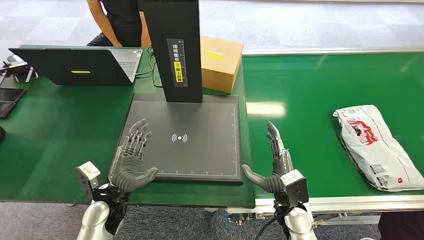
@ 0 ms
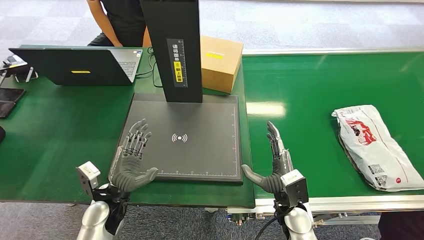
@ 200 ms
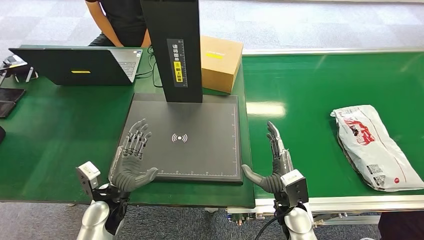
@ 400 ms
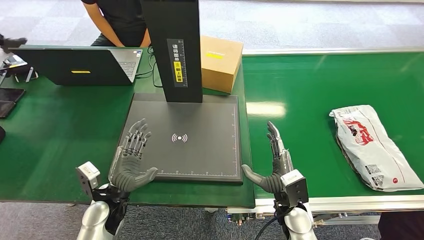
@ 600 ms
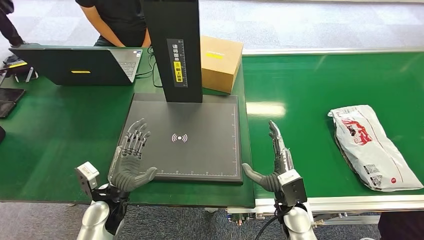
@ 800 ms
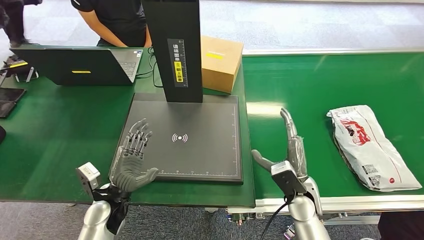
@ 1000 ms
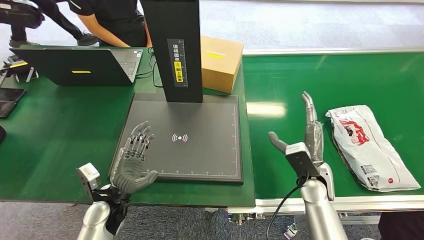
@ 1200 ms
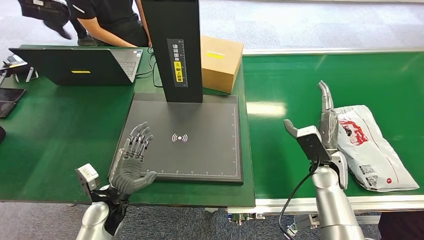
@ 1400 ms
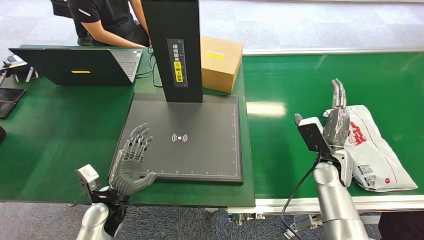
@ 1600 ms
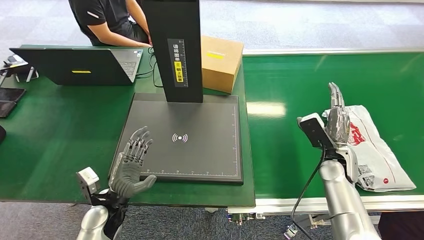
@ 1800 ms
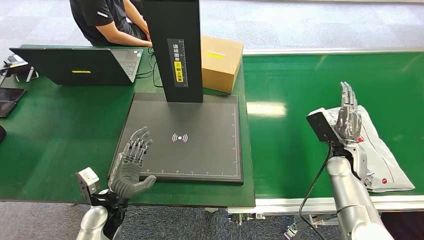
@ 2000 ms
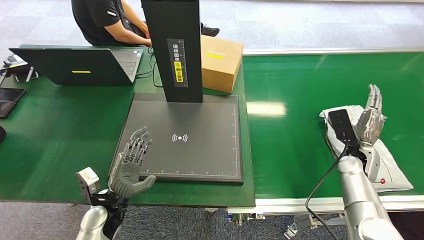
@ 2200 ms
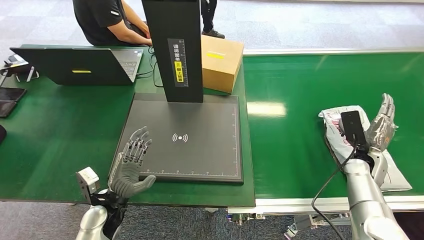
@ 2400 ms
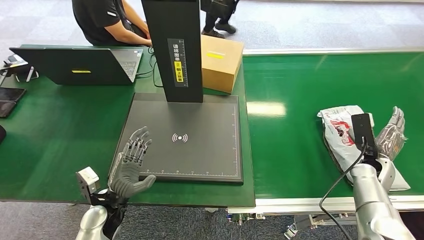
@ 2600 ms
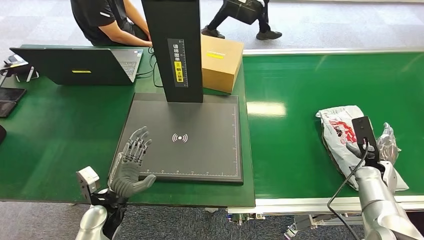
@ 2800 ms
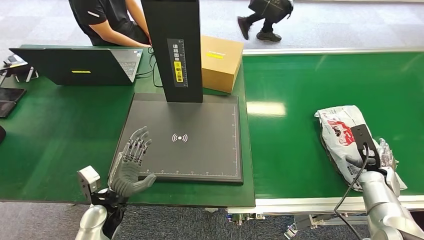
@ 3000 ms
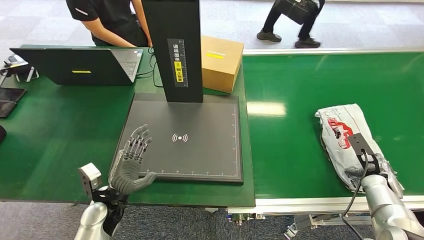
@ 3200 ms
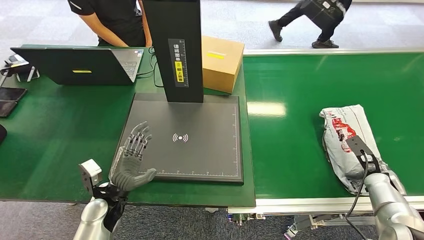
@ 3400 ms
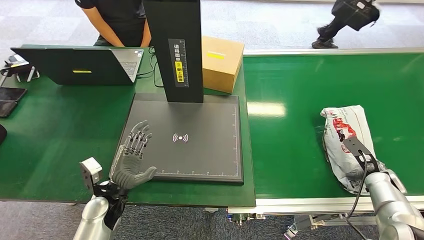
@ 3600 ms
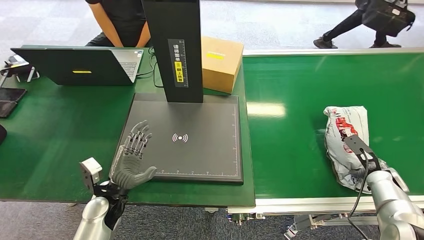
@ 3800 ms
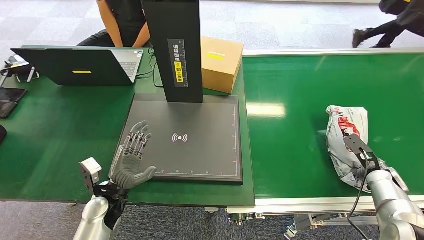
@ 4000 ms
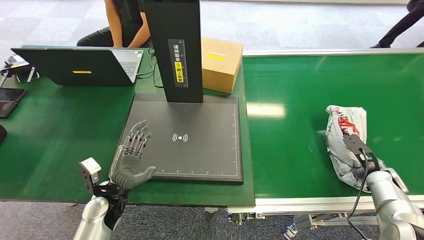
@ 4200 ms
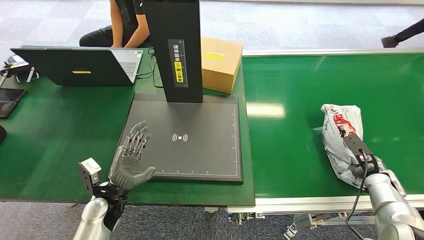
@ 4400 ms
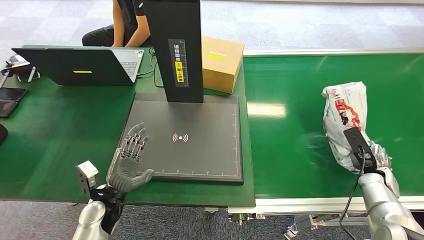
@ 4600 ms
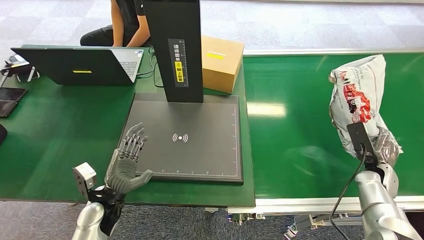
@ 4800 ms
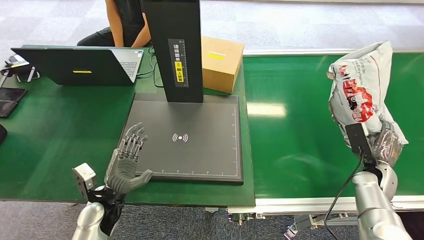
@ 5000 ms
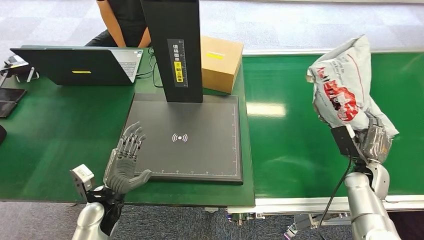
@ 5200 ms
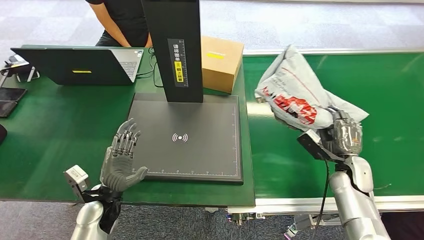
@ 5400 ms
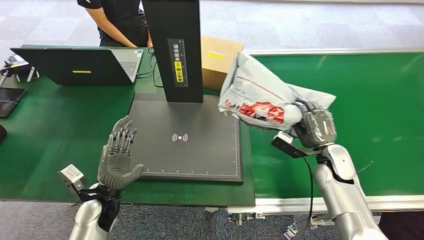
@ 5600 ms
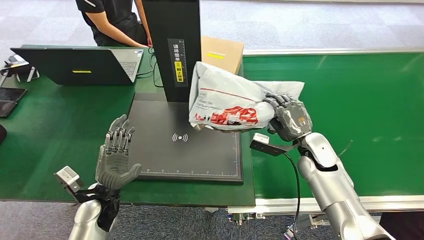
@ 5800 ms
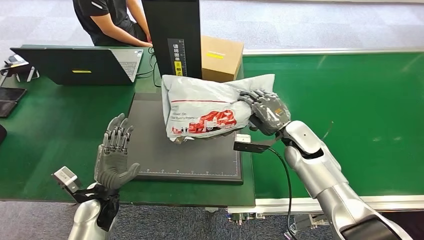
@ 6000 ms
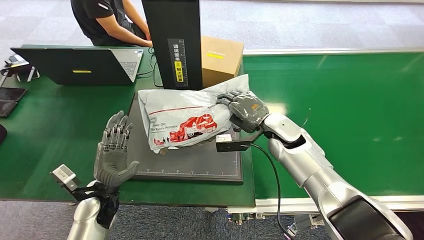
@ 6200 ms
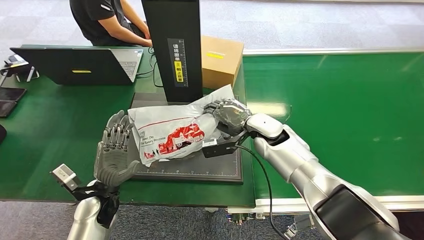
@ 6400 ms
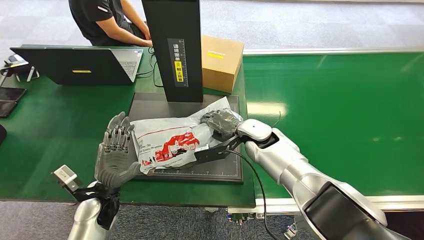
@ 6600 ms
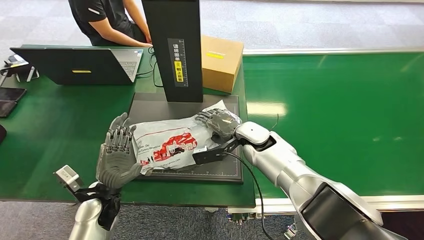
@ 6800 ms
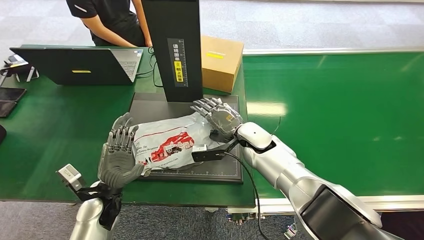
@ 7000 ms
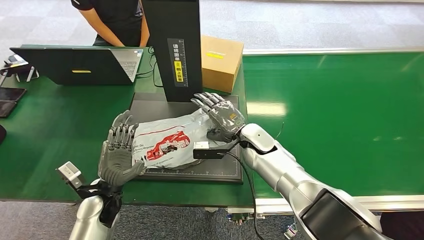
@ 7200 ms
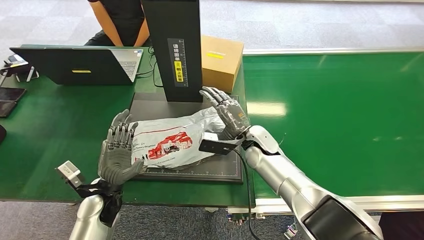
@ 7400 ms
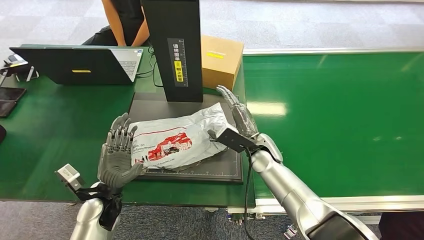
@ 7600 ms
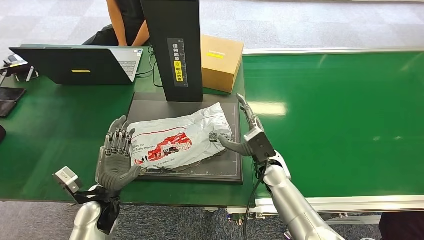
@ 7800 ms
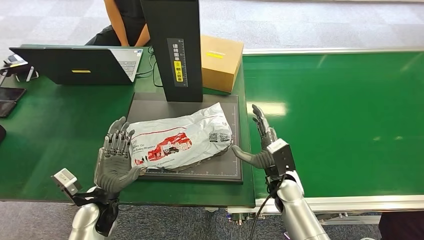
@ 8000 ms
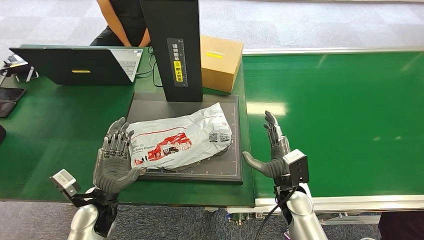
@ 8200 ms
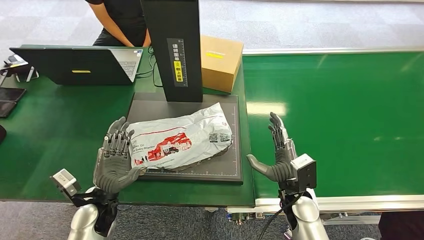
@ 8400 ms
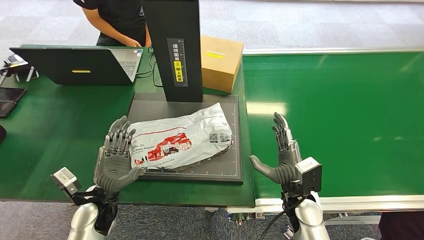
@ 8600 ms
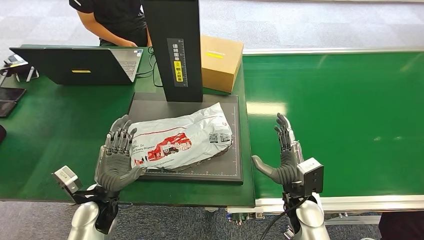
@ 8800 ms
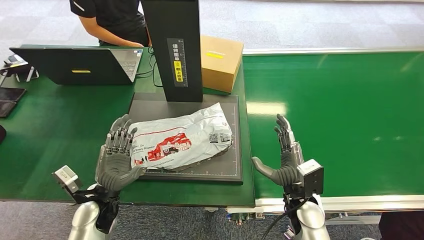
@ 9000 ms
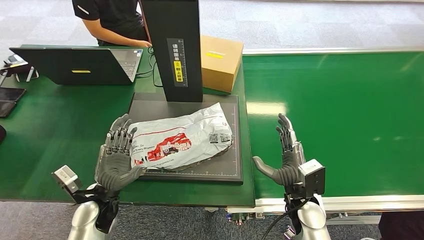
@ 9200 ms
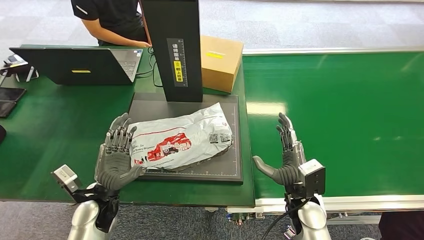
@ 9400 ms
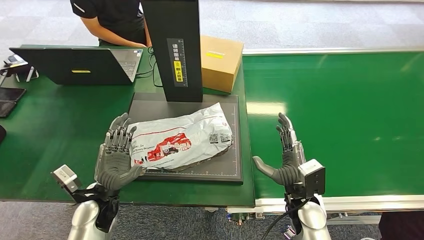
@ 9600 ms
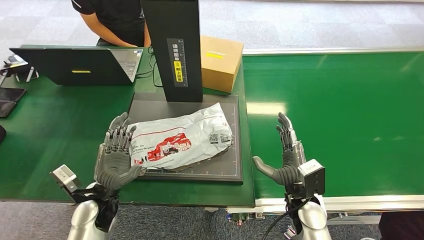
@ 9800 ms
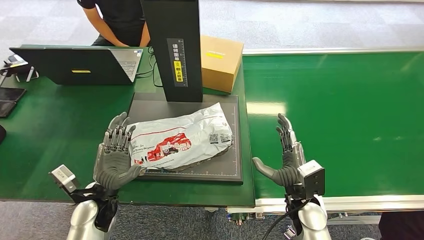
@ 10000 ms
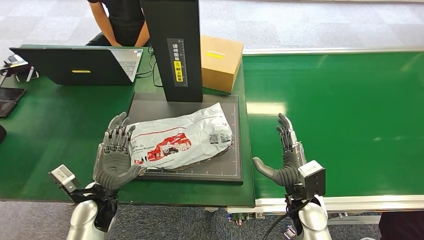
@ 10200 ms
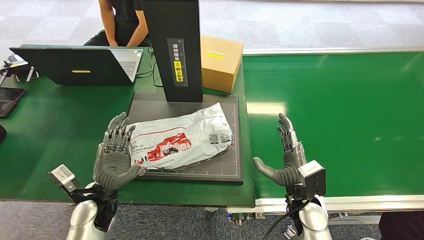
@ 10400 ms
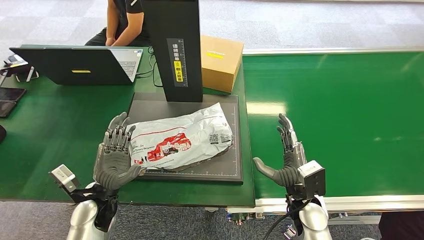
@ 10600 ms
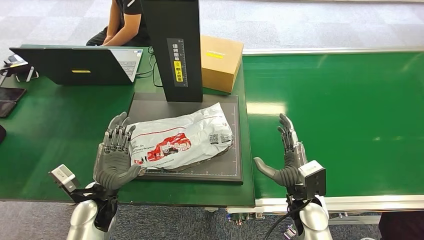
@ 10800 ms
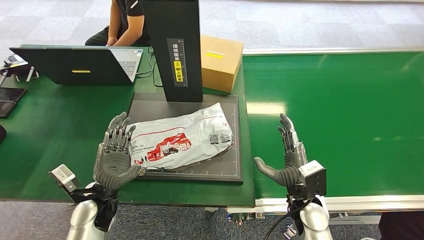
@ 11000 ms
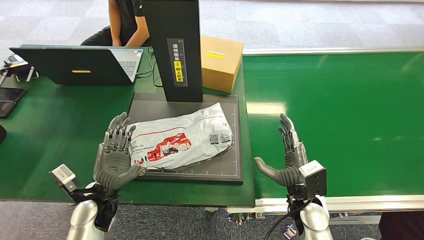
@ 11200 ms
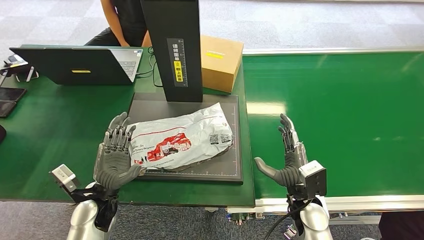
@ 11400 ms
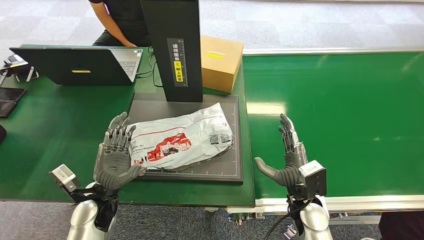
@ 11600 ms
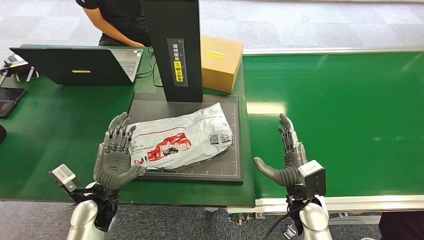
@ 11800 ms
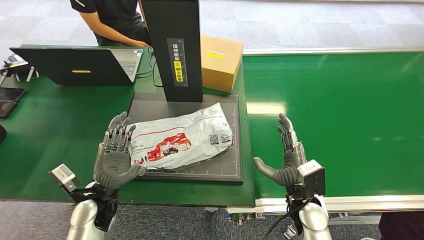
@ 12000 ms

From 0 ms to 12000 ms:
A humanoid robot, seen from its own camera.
Step, from 0 ms to 400 ms: Pick up the package from the conveyor belt.
Step, from 1200 ms to 4800 ms: Pick up the package from the conveyor belt.
Step, from 5000 ms to 7800 ms: Place the package onto the inbound machine.
From 1600 ms to 3000 ms: The right hand heads to the right and downward, covering some 15 cm.
From 7600 ms to 9000 ms: The right hand goes some 15 cm backward and to the right.
From 9000 ms to 12000 ms: Neither hand changes place.

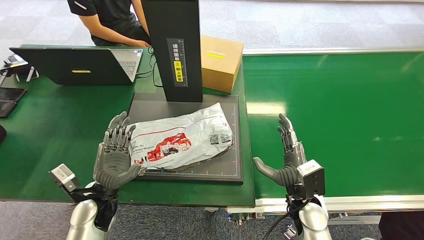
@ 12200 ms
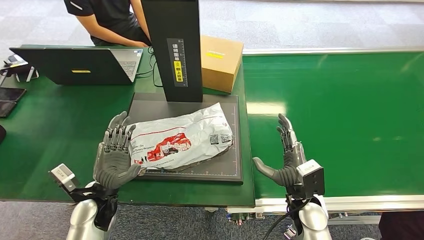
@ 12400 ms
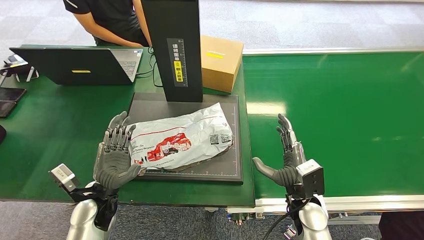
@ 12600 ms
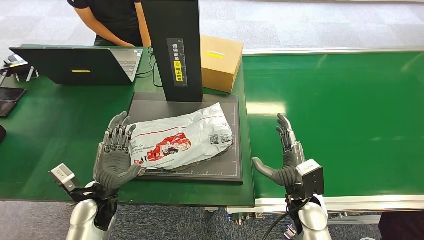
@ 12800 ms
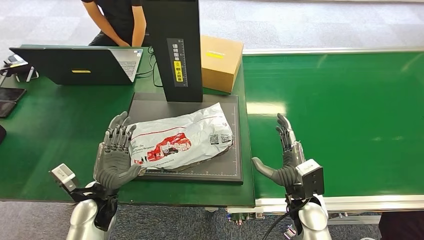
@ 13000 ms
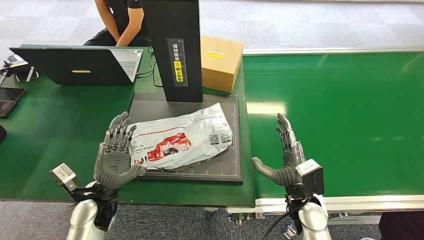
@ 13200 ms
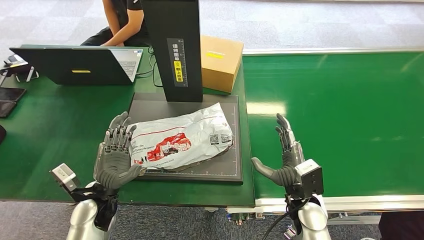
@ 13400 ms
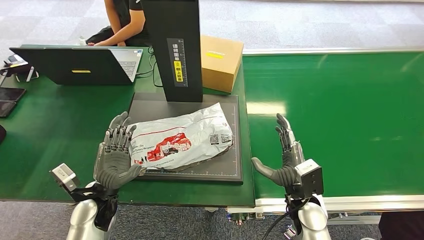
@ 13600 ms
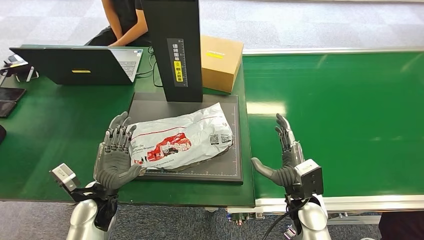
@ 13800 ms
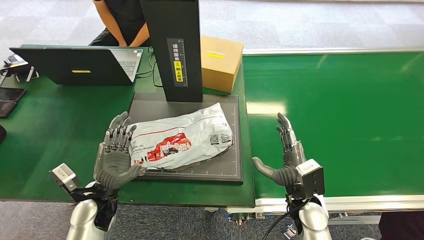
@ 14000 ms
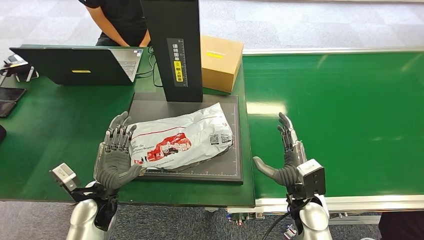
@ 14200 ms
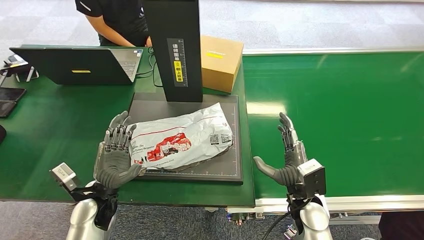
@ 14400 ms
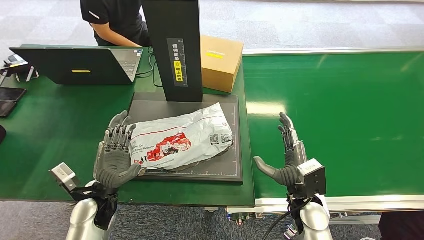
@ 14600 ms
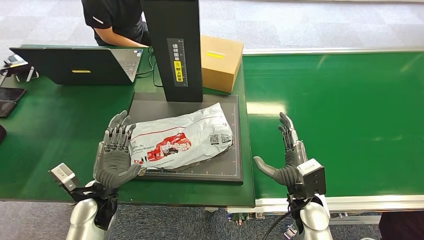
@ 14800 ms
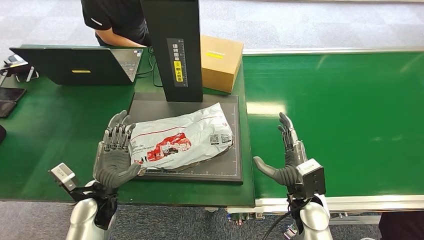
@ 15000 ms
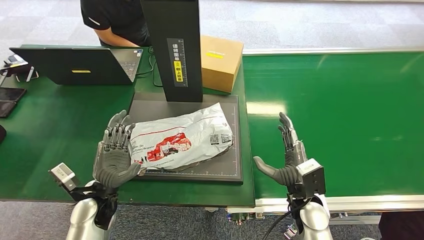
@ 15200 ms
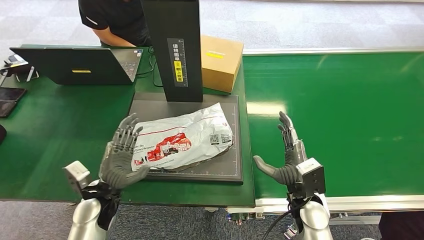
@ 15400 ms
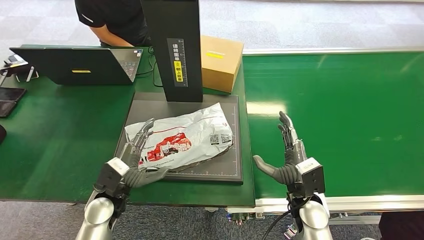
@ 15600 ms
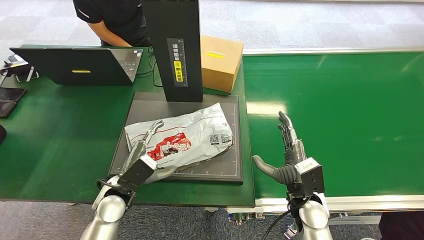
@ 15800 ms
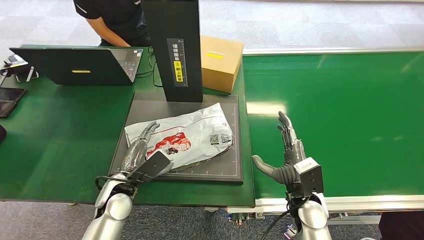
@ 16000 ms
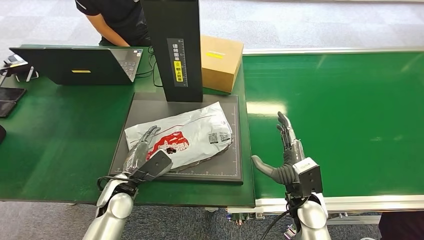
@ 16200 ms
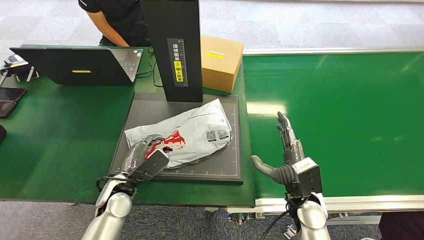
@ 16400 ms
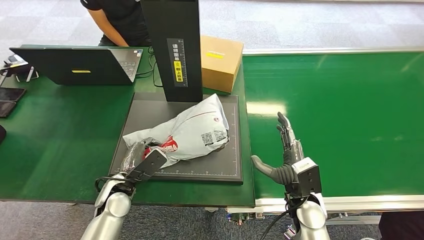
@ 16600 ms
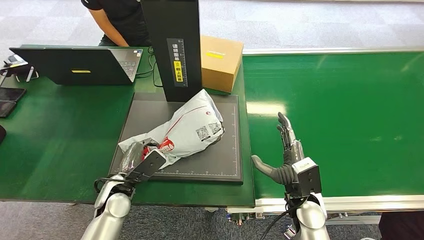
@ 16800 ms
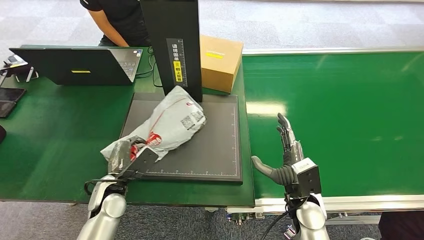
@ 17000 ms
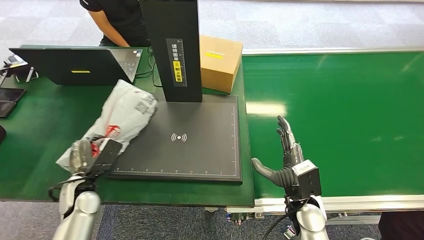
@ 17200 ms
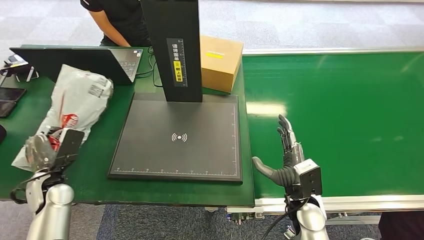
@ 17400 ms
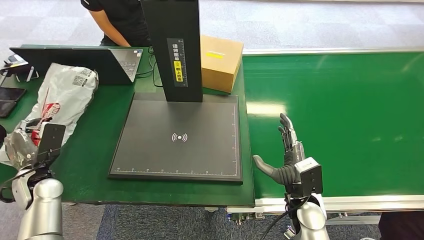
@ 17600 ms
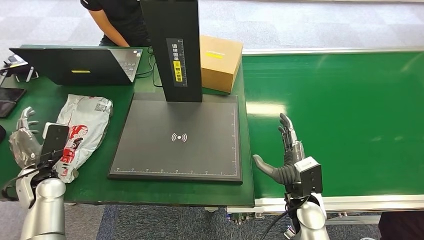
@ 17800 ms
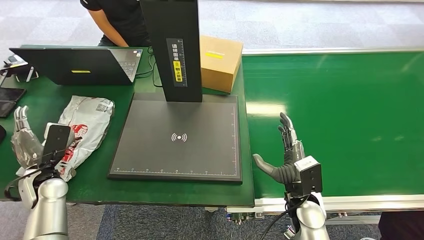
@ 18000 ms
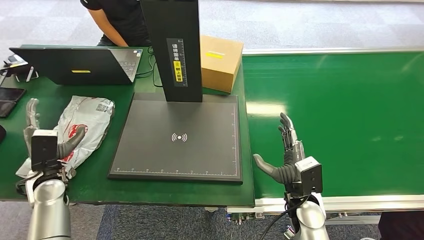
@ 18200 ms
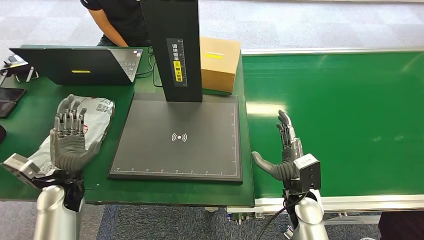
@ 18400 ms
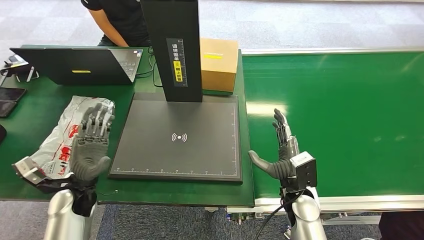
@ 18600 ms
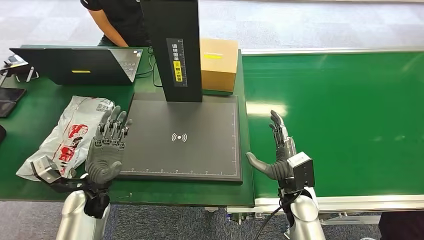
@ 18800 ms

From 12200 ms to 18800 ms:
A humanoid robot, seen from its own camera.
Step, from 15400 ms to 17000 ms: Pick up the package from the inbound machine.
Step, from 17400 ms to 18600 ms: Place the package into the parcel locker.
From 12200 ms to 13800 ms: Both hands stay about where they are.
From 13800 ms to 15400 ms: There are only small adjustments of the hands.
From 15400 ms to 17200 ms: The left hand is displaced to the left by some 5 cm.
From 17200 ms to 18800 ms: The left hand reaches approximately 10 cm to the left, then returns.
